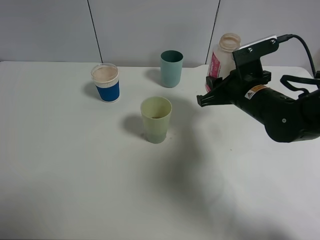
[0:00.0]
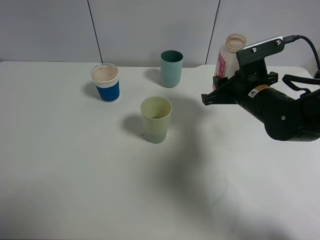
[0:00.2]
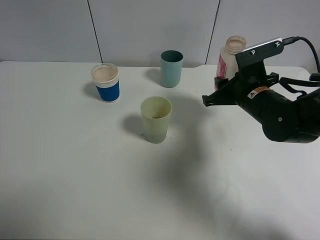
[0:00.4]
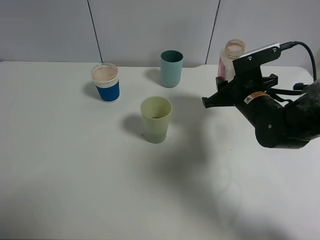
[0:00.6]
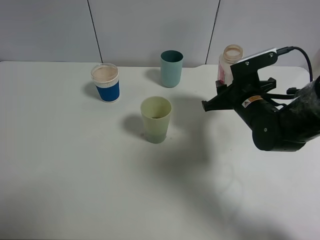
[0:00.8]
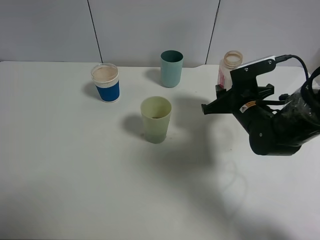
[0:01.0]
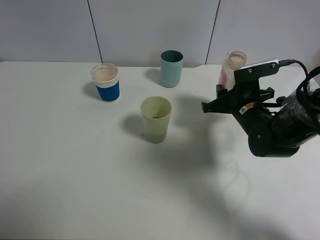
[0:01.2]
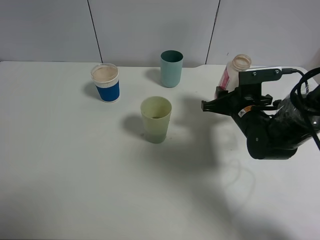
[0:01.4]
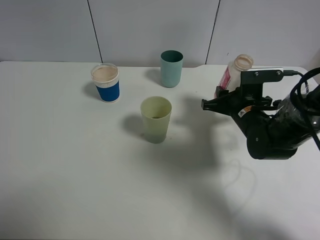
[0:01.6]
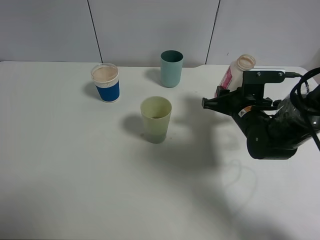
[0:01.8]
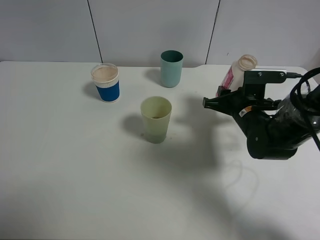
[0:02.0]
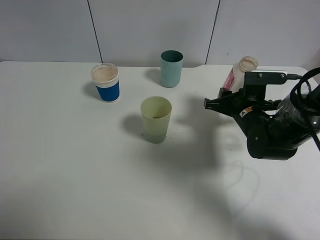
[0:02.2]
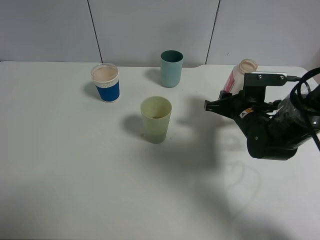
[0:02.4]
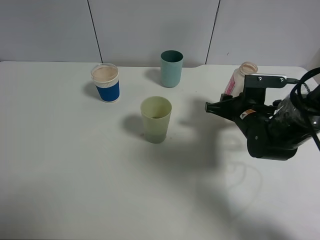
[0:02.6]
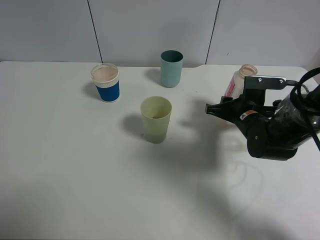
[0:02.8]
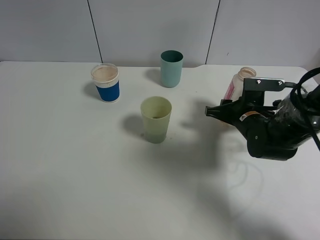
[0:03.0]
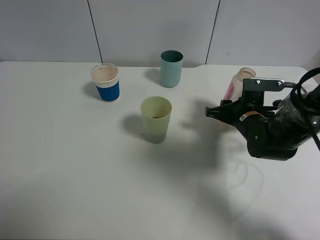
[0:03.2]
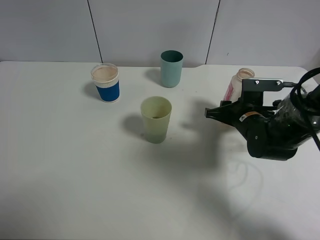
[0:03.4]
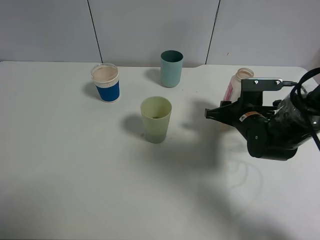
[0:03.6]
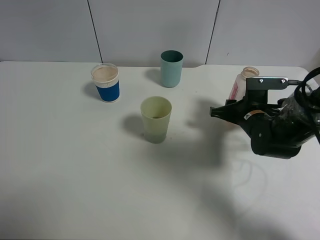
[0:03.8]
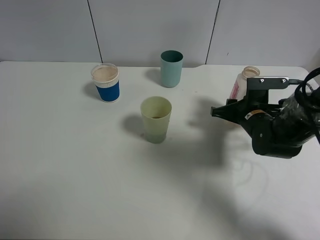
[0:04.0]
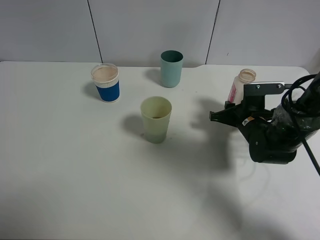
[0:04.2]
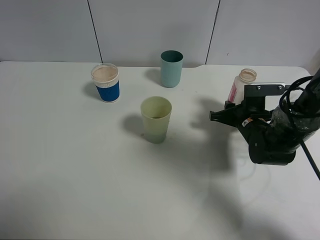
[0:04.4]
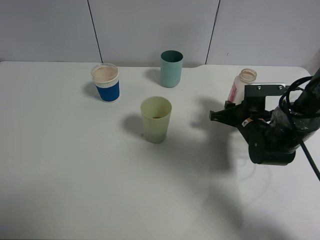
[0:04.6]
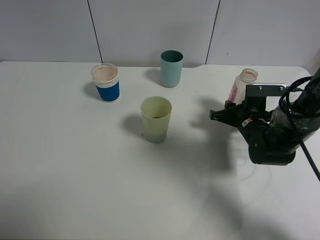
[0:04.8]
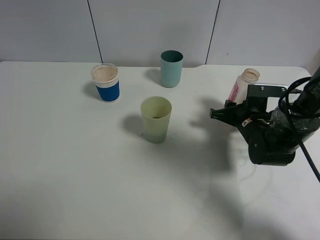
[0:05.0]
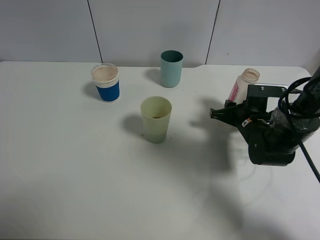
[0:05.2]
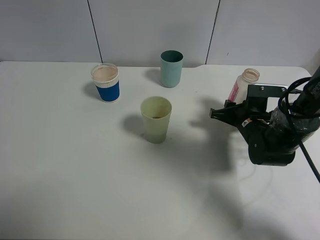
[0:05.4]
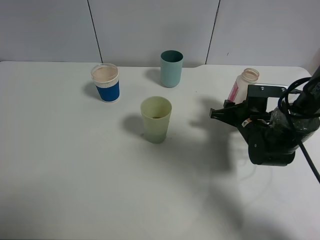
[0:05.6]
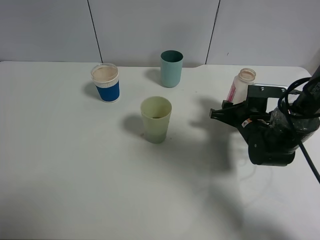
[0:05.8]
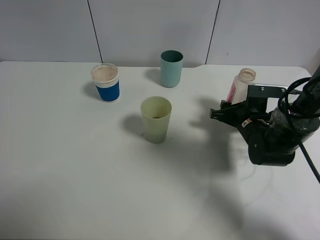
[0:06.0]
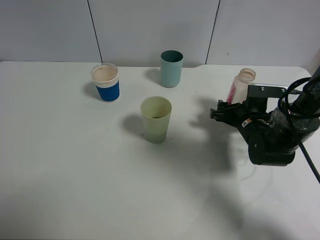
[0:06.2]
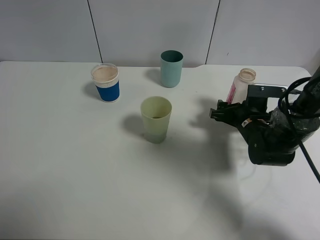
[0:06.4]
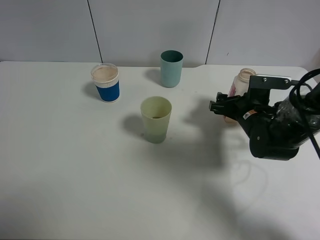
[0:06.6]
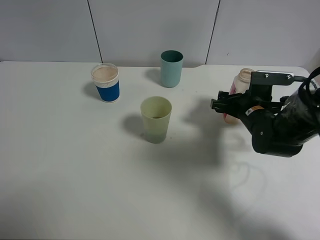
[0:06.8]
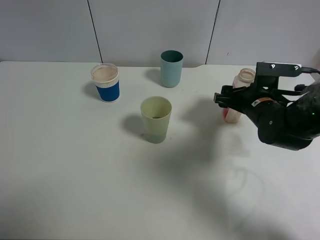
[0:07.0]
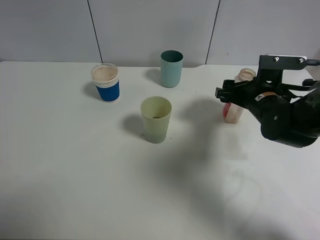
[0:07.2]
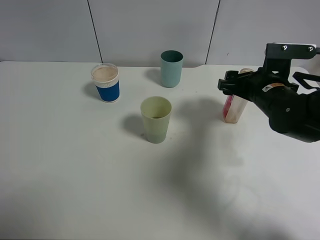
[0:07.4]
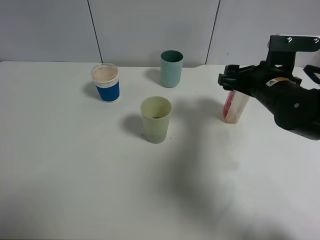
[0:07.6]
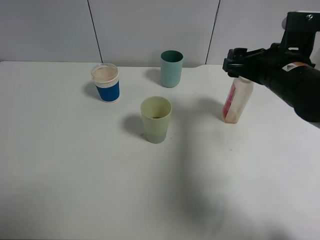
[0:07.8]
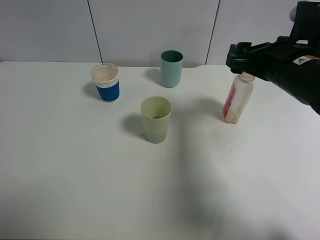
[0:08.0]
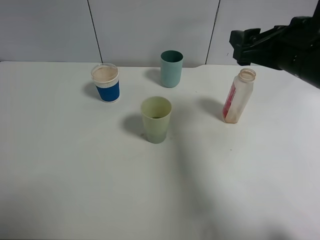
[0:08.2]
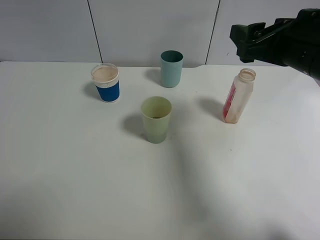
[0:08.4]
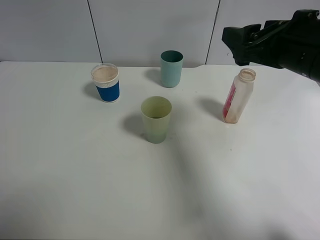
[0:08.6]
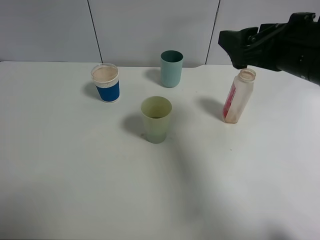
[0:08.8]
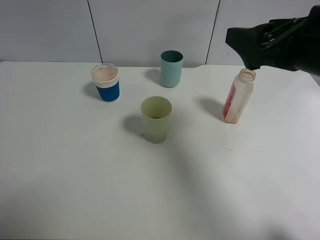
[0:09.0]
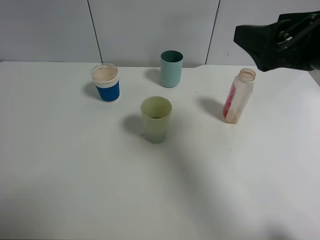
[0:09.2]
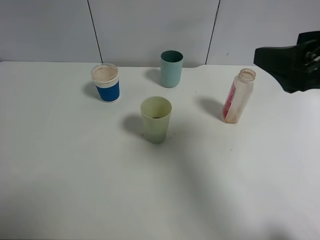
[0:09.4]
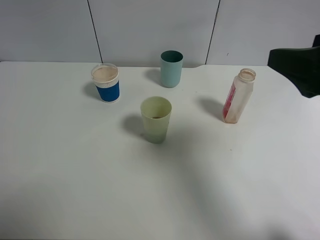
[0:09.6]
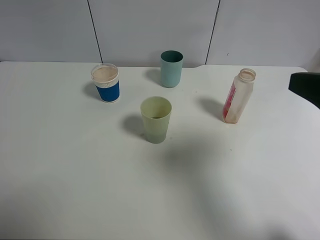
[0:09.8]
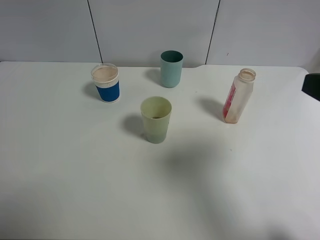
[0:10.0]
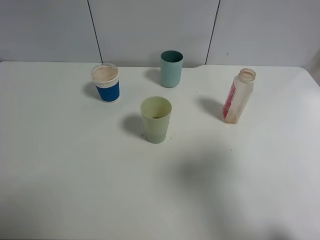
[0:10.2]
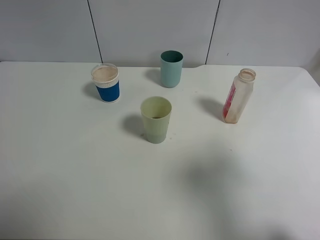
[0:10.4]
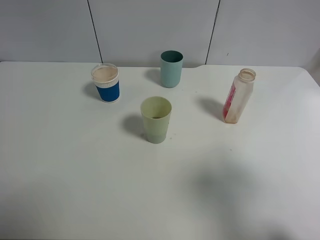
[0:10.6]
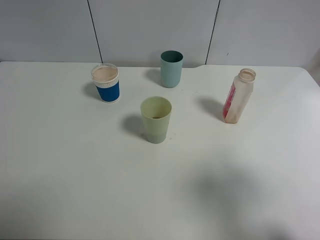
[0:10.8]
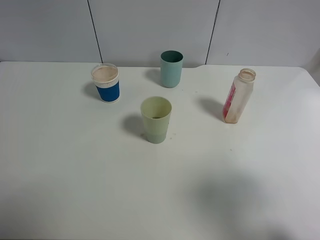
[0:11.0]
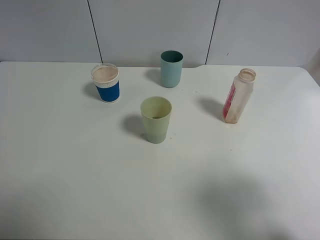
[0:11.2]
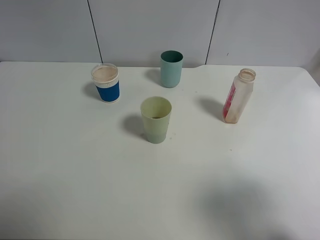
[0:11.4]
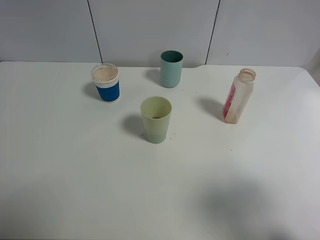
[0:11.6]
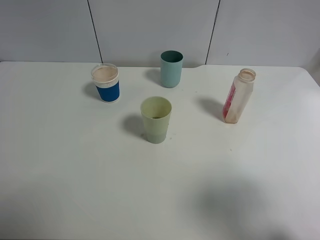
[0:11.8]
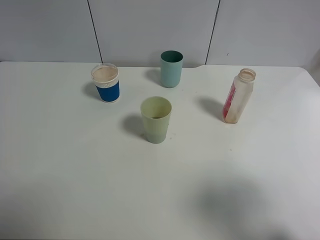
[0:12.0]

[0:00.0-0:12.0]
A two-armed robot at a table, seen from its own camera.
Task of the whole recording: use a clamp to hold the bottle of the drink, pour the beverage into a random cup, then clamp the cup containing the drink and pour the drink into another random cup.
Step, 0:00.0 to 0:06.6: Place the drink bottle on the table with right gripper.
0:00.0 to 0:01.6: The right gripper heads downward, covering some 5 cm.
0:01.6 to 0:04.4: There are only small adjustments of the grippers.
0:04.4 to 0:06.0: The right gripper opens.
0:06.0 to 0:07.6: The right gripper travels upward by some 10 cm.
0:07.6 to 0:09.0: The right gripper travels upward and backward by some 15 cm.
0:09.0 to 0:10.4: The right gripper shifts about 15 cm backward and to the right.
0:10.4 to 0:12.0: The grippers make only small movements.

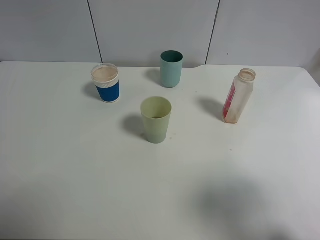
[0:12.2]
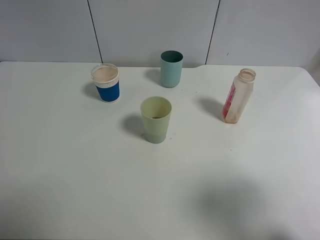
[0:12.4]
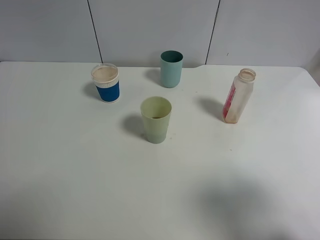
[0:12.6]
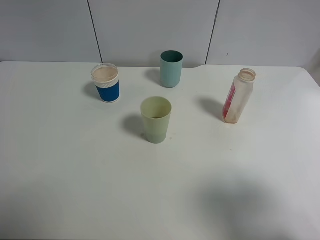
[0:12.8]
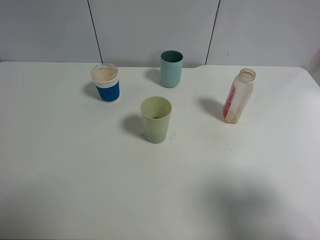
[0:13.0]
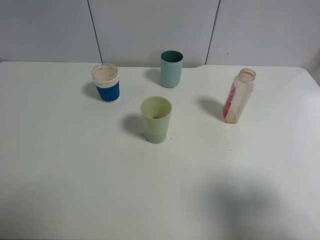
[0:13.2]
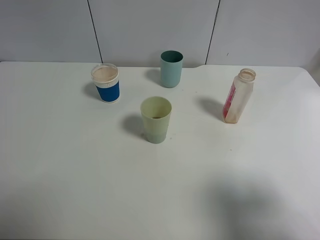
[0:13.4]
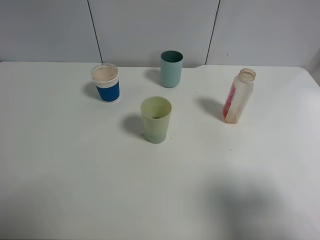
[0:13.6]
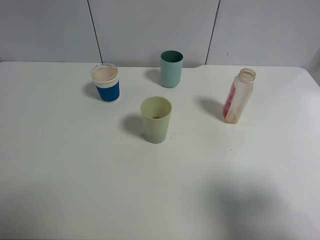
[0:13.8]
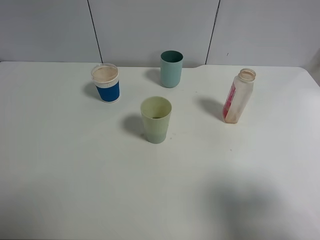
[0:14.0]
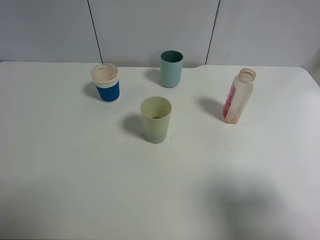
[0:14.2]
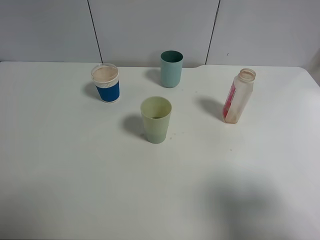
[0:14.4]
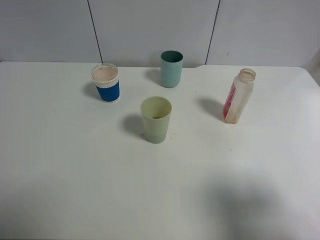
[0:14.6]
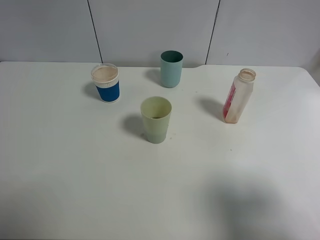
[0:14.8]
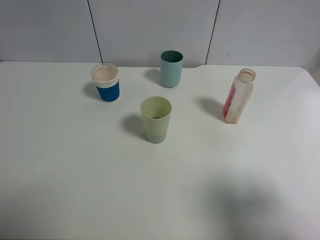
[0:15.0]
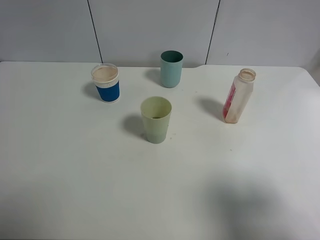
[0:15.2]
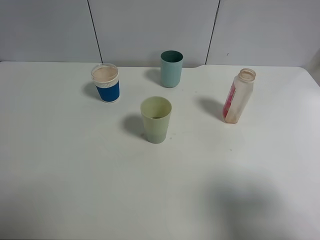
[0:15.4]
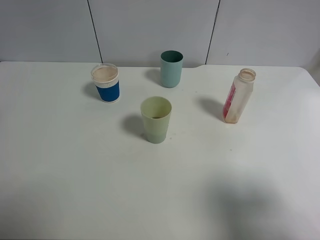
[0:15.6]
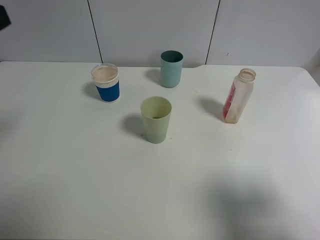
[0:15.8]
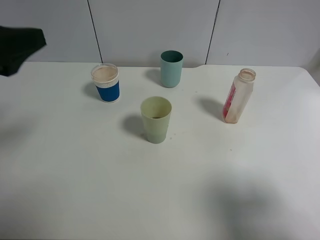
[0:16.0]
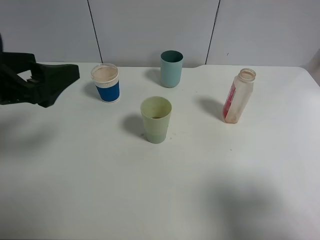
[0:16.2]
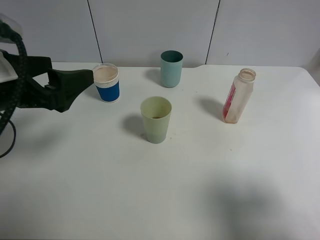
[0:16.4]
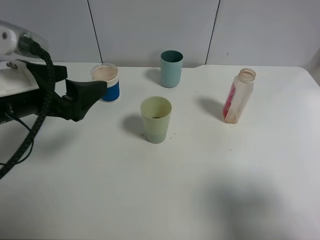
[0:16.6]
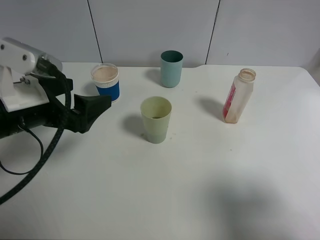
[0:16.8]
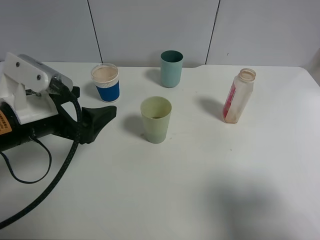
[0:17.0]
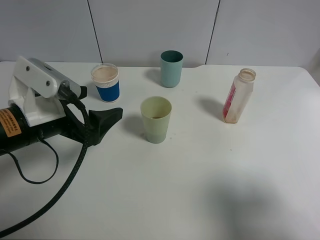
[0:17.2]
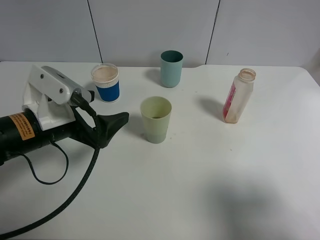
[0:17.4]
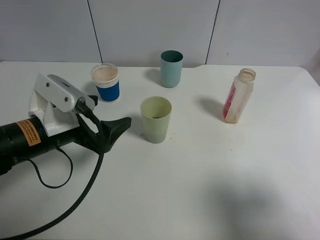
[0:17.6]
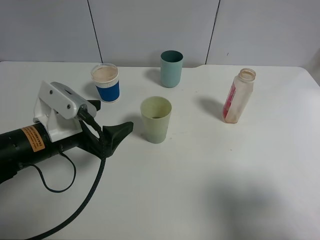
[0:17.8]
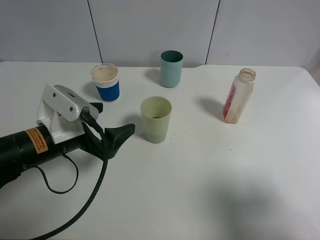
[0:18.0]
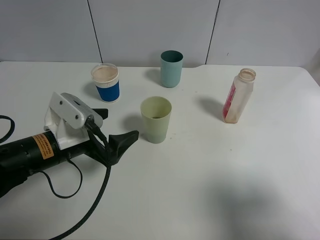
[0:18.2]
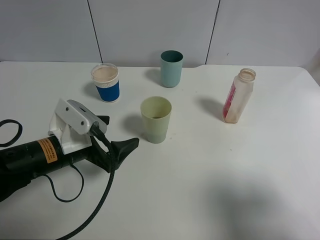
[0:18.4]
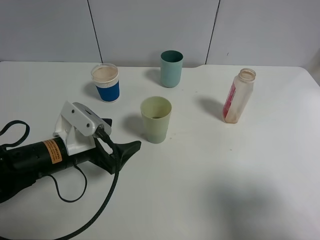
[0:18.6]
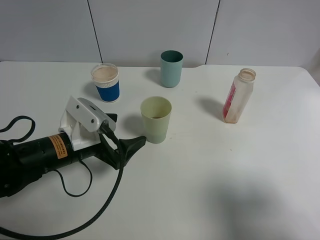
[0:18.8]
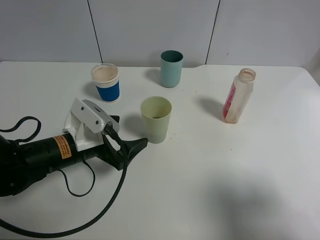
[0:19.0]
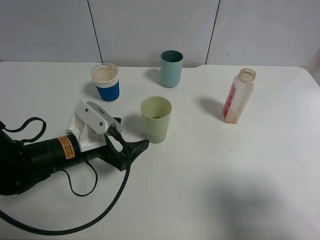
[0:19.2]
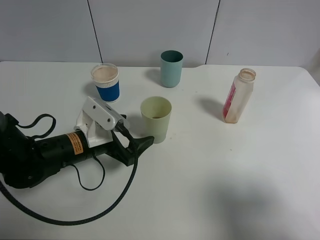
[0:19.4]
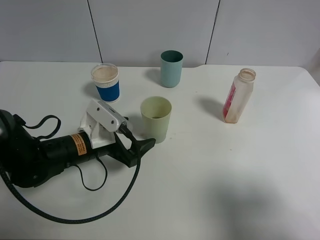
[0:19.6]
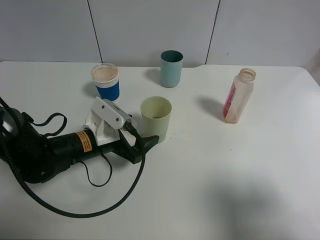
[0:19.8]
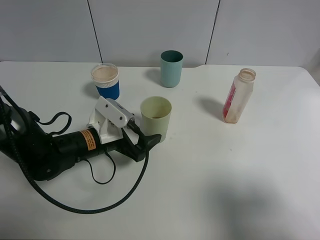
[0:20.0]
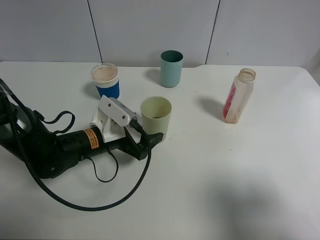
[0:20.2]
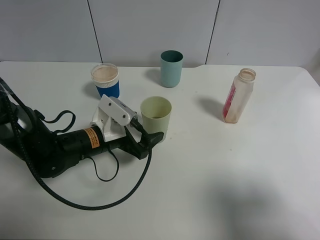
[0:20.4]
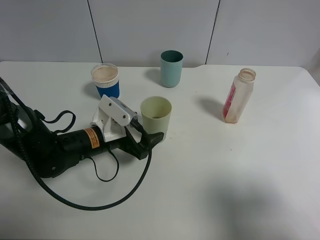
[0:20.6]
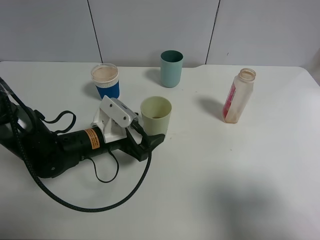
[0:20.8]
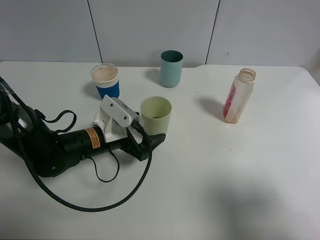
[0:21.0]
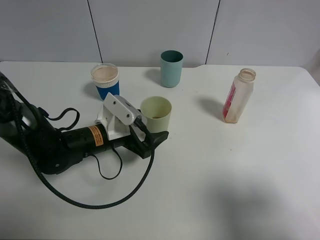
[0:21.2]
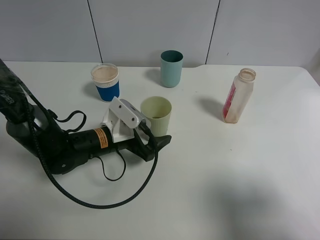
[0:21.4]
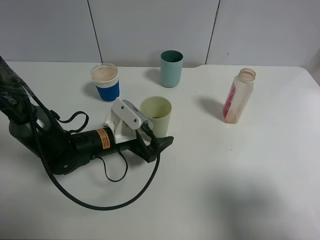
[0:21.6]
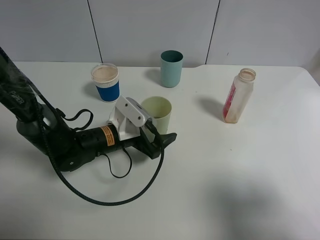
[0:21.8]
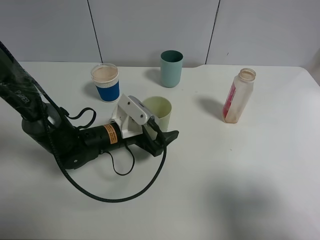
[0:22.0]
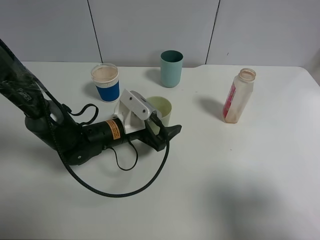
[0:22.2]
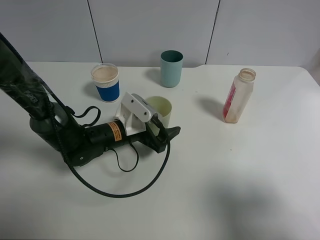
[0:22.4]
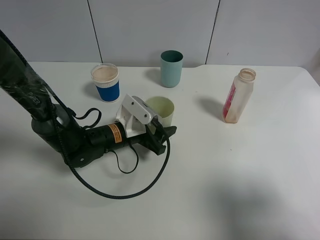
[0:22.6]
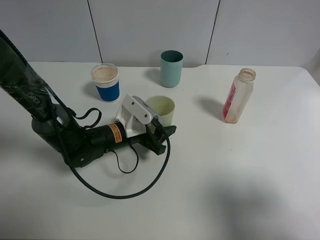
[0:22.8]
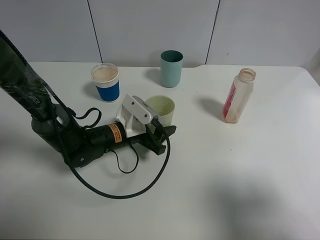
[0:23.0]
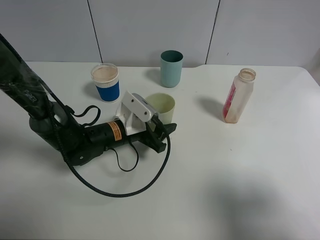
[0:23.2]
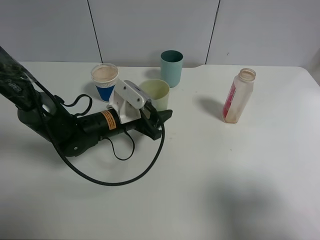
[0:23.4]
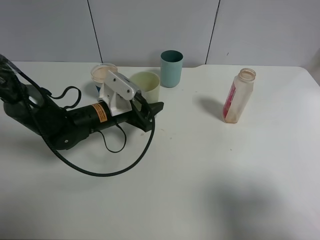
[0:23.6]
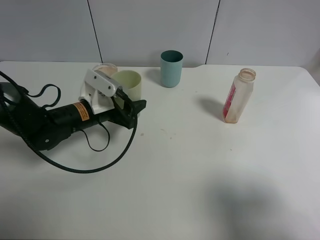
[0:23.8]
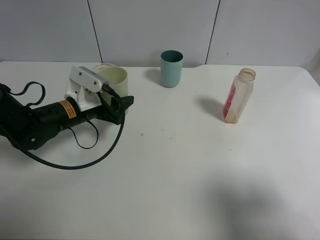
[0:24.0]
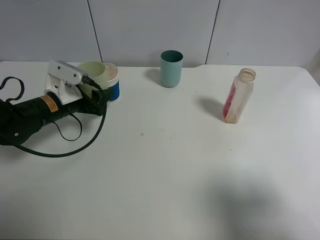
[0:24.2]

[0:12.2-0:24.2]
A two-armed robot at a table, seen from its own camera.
Task of the whole recording: use a clamp to hold the bottle of the drink, pour the beverage into a random cup, then clamp the cup containing the drink and pour the drink into another random cup.
Step, 0:12.2 to 0:23.4: Pick up the green plastic cup bottle with left gripper.
0:15.2 to 0:16.6: The left gripper heads downward, to the right and forward, covering roughly 20 cm.
0:16.6 to 0:18.2: The left gripper moves downward, about 10 cm.
0:18.2 to 0:19.8: The left gripper moves roughly 5 cm.
0:19.8 to 0:21.2: The grippers stay close to where they were, moving slightly.
0:21.2 to 0:22.6: The left gripper closes its fingers.
0:22.6 to 0:24.2: The left gripper shifts roughly 15 cm to the left.
